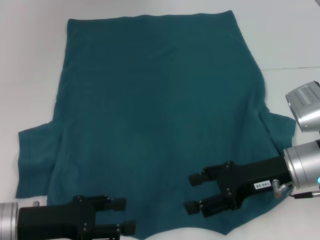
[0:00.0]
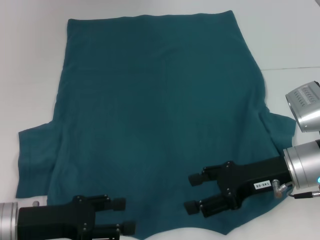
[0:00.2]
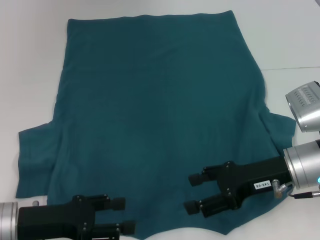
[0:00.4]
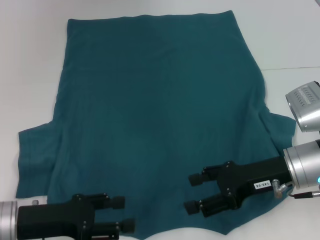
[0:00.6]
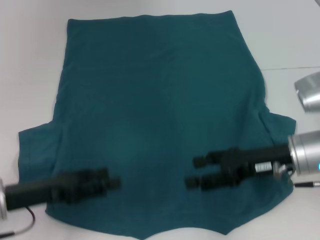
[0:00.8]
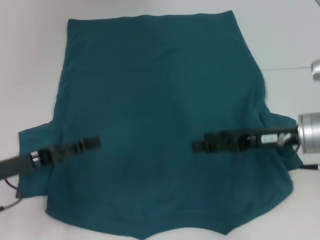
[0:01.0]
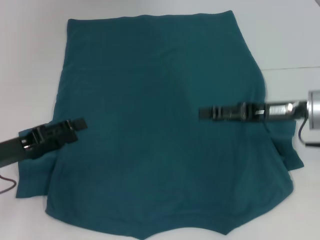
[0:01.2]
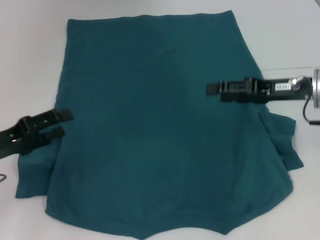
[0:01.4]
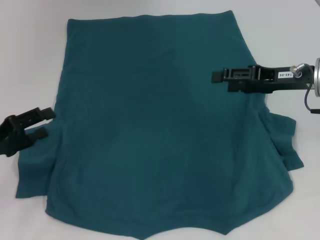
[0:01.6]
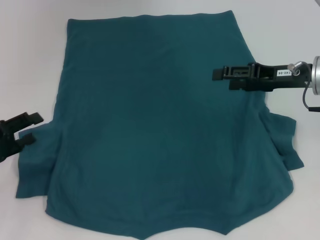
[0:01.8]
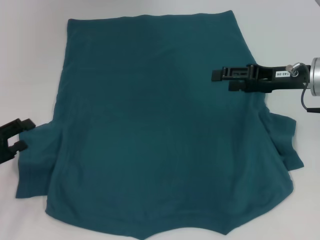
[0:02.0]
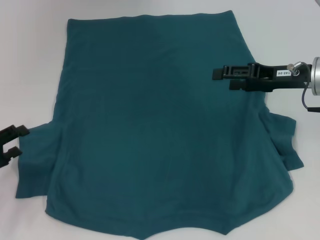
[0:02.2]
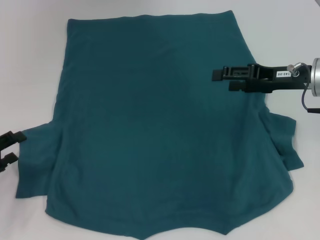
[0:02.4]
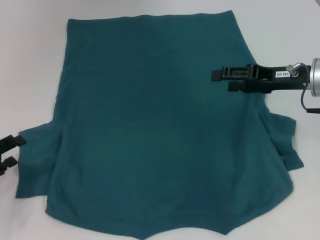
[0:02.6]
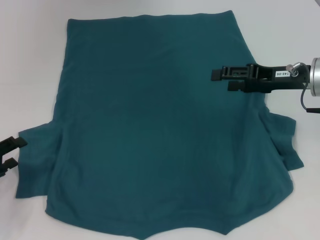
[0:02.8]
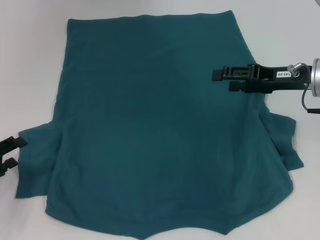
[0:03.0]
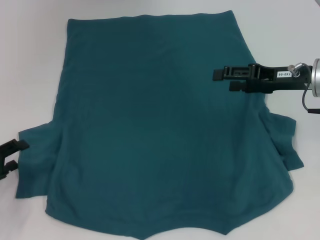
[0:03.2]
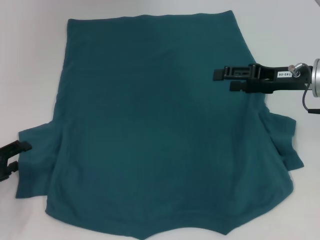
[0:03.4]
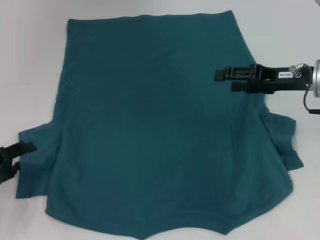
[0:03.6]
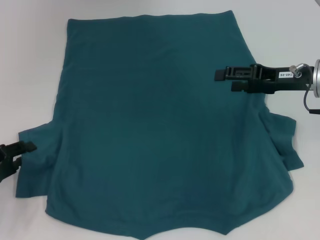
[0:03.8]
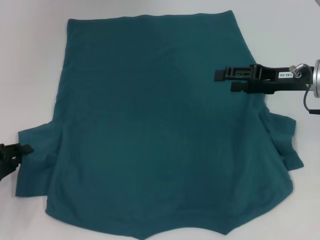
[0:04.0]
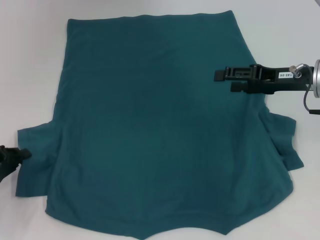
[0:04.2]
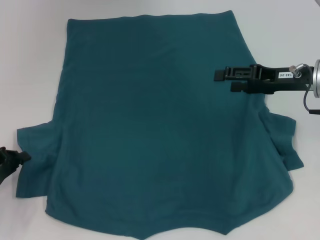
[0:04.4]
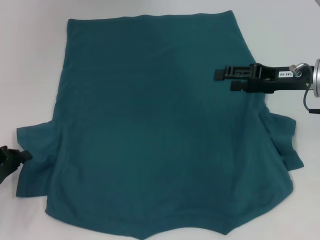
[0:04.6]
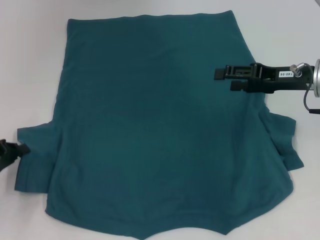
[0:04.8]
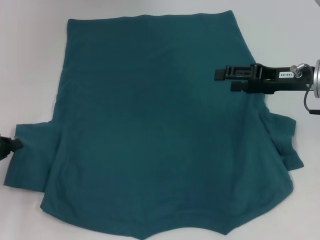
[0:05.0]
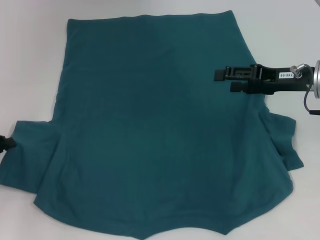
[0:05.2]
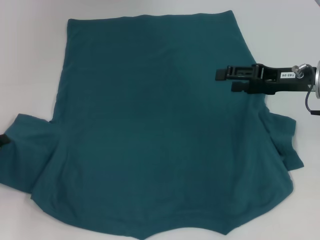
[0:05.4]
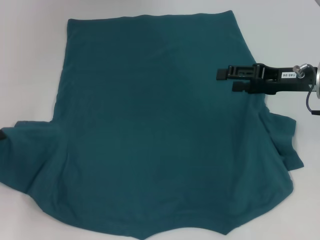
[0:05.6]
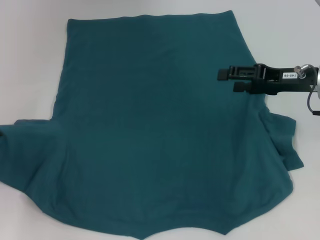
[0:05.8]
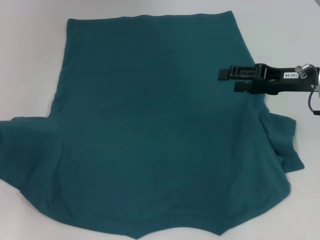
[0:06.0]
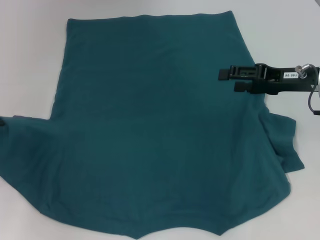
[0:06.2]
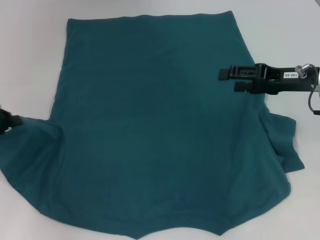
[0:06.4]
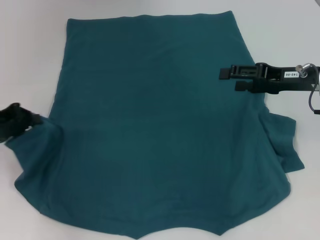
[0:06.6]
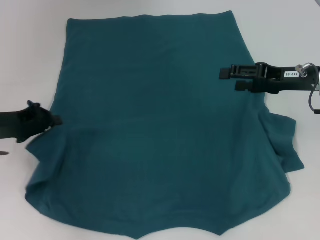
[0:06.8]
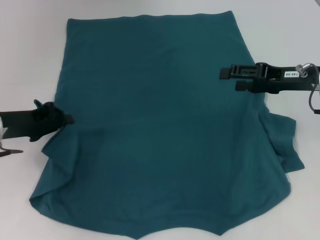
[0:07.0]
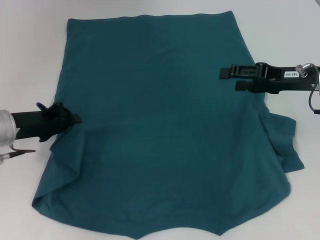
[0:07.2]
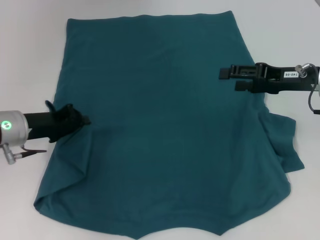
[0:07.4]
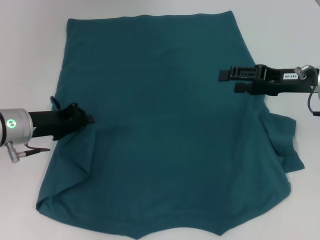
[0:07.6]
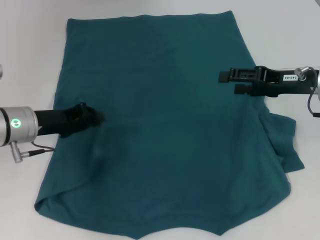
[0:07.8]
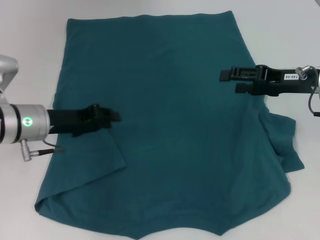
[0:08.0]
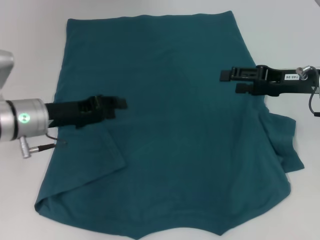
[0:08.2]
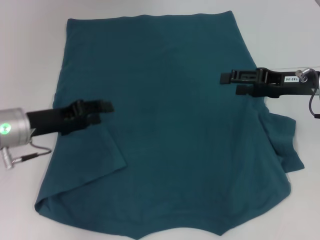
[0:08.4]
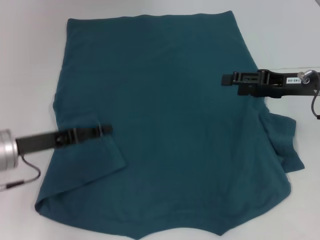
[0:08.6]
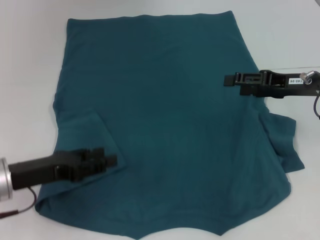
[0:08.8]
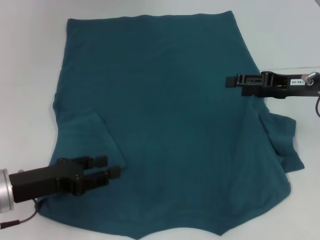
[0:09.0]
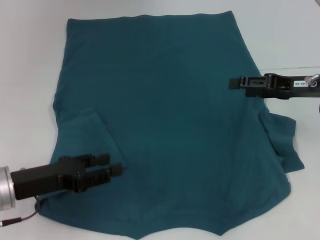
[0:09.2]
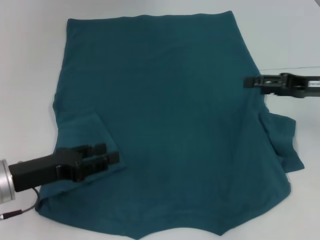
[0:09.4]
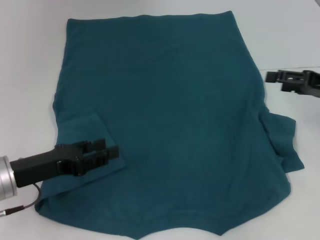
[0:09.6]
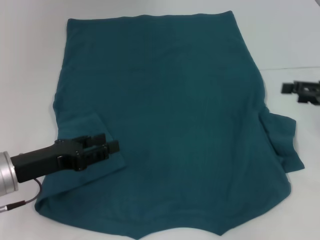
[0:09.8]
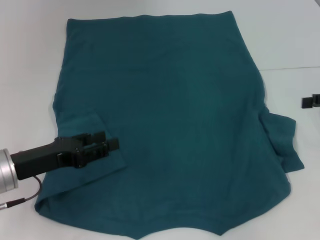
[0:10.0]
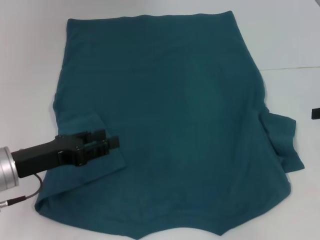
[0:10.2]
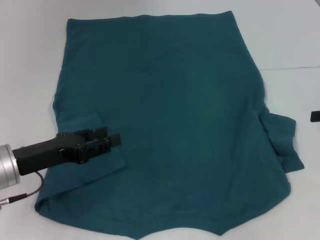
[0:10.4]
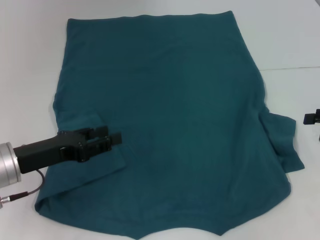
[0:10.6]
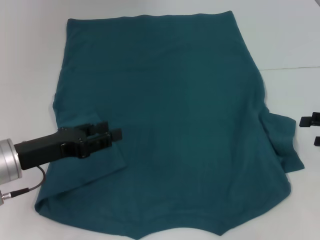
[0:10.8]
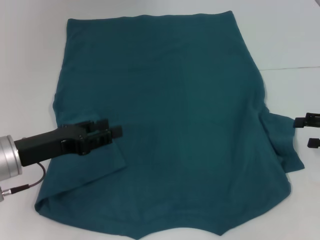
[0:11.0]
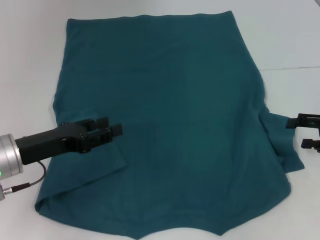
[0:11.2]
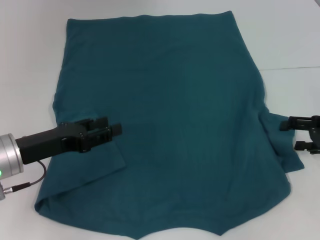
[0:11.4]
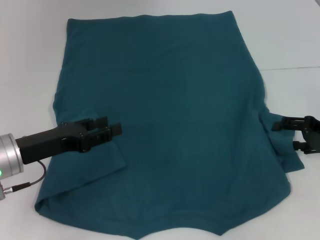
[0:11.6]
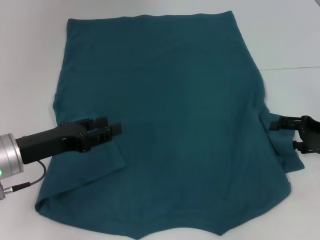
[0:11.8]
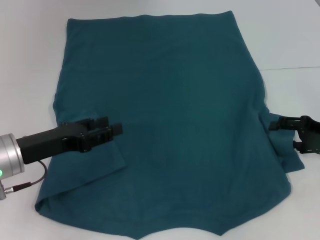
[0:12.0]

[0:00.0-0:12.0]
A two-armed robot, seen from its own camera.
Step, 0:00.0 to 0:08.0: Fold the bottom left sleeve with your left hand.
0:00.0 to 0:01.6: The left gripper shifts approximately 10 cm to the left and forward; the right gripper moves forward, upward and to the right, some 10 cm.
0:01.6 to 0:03.0: The left gripper moves roughly 5 cm.
0:03.0 to 0:04.4: The left gripper closes its fingers.
0:04.4 to 0:06.0: The left gripper moves upward, roughly 5 cm.
0:06.0 to 0:07.6: The left gripper is displaced to the right by roughly 15 cm.
0:07.6 to 0:09.0: The left gripper heads backward, covering some 10 cm, and opens.
0:09.0 to 0:10.4: The right gripper shifts roughly 10 cm to the right and backward.
0:10.4 to 0:12.0: The right gripper is displaced downward by some 5 cm.

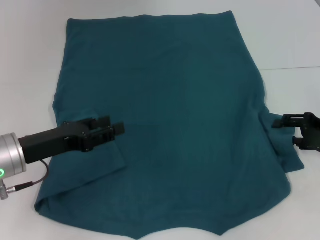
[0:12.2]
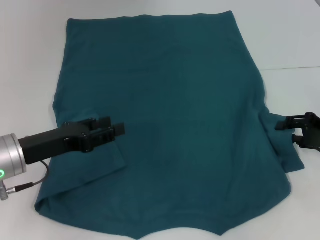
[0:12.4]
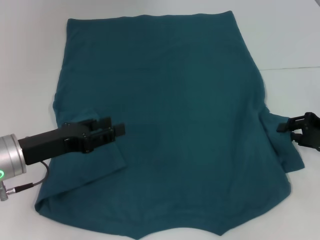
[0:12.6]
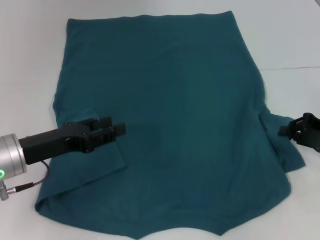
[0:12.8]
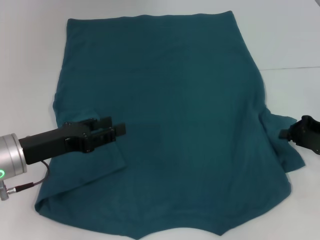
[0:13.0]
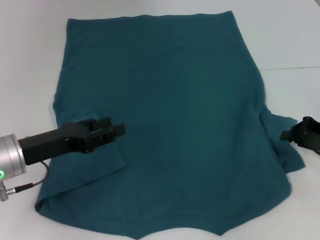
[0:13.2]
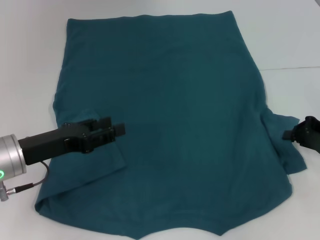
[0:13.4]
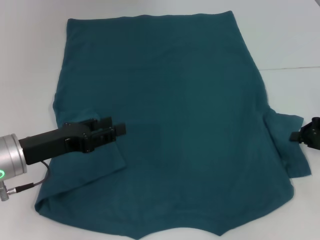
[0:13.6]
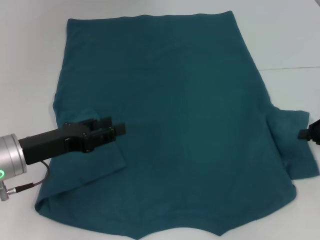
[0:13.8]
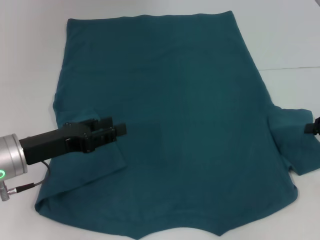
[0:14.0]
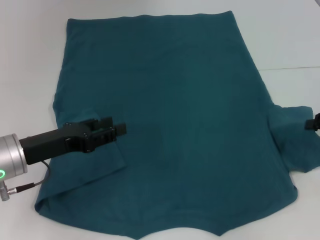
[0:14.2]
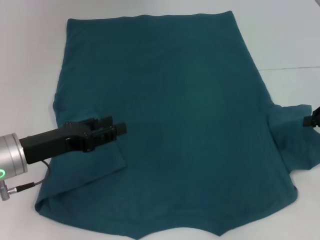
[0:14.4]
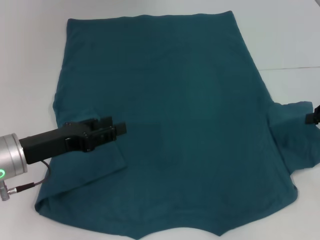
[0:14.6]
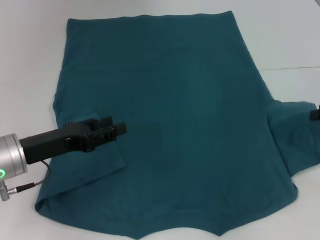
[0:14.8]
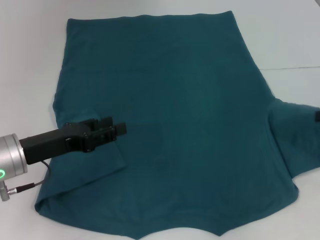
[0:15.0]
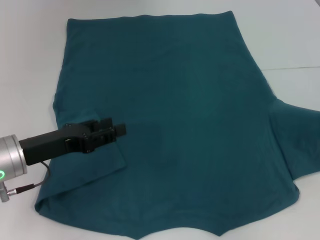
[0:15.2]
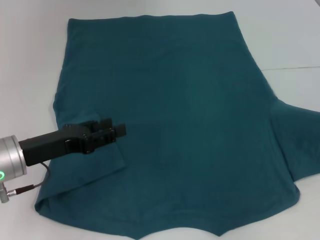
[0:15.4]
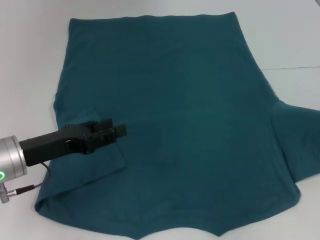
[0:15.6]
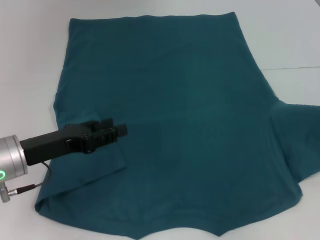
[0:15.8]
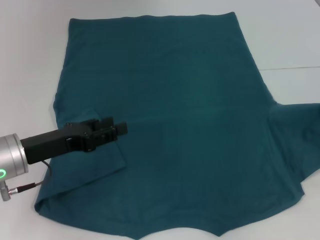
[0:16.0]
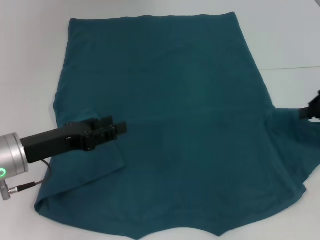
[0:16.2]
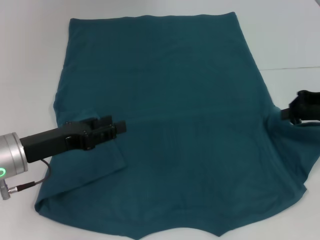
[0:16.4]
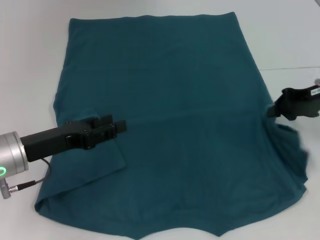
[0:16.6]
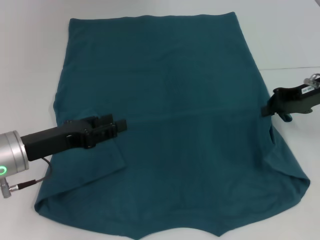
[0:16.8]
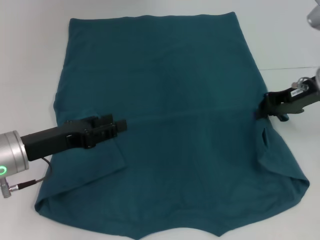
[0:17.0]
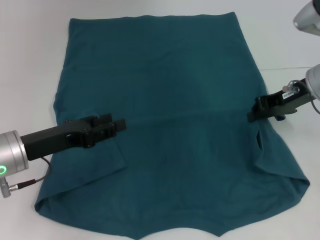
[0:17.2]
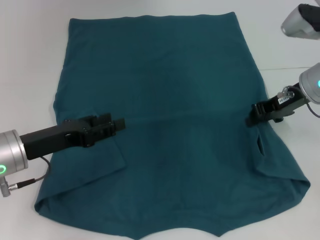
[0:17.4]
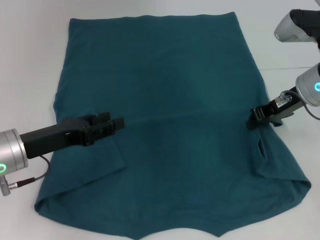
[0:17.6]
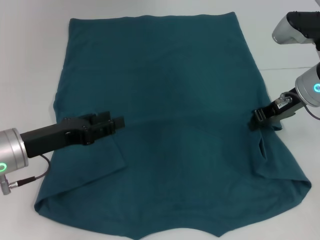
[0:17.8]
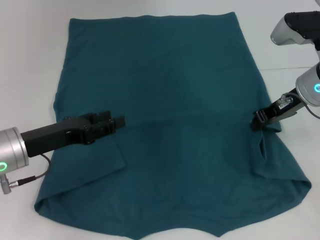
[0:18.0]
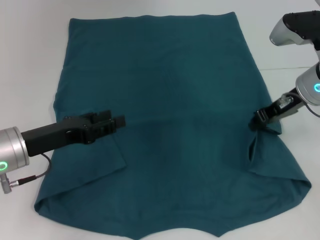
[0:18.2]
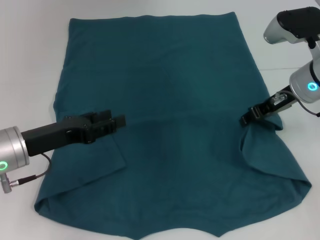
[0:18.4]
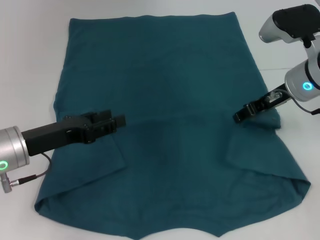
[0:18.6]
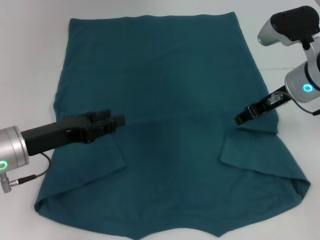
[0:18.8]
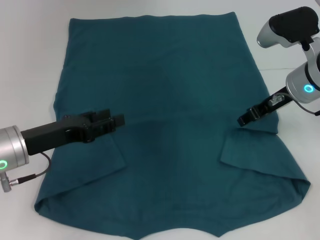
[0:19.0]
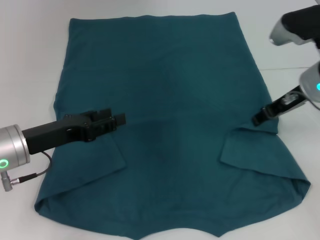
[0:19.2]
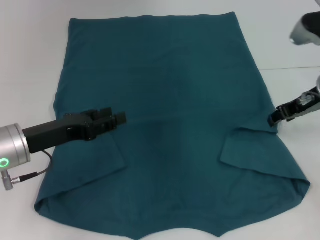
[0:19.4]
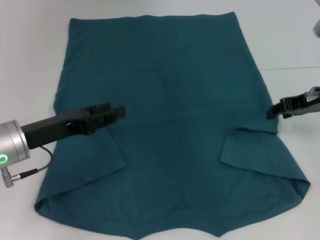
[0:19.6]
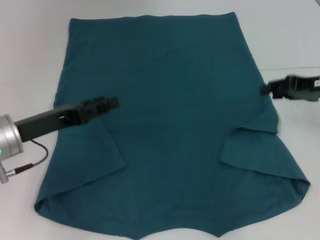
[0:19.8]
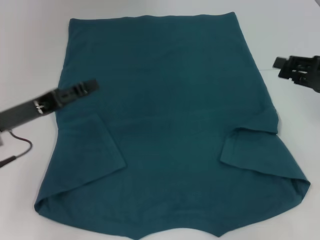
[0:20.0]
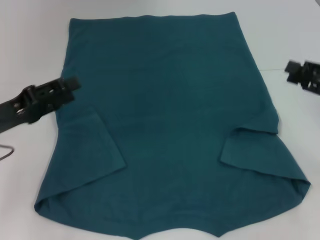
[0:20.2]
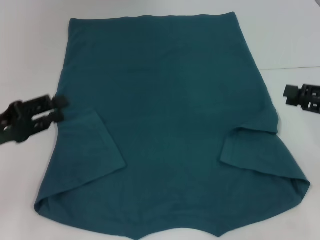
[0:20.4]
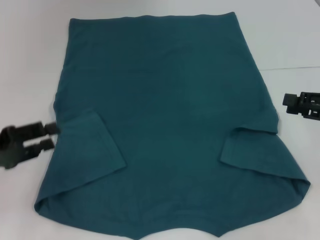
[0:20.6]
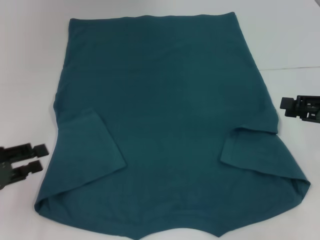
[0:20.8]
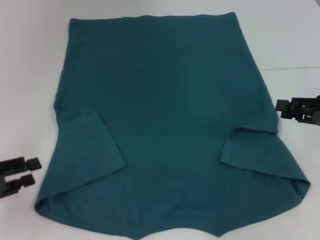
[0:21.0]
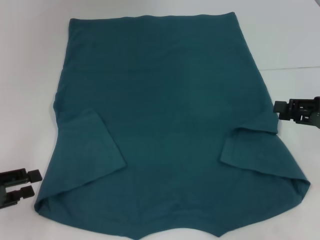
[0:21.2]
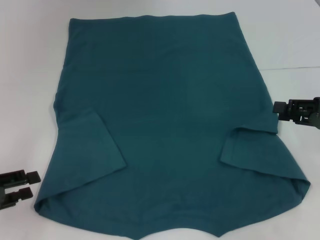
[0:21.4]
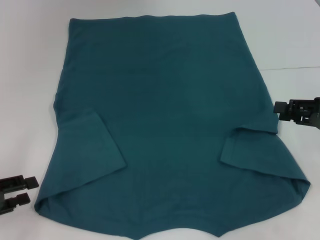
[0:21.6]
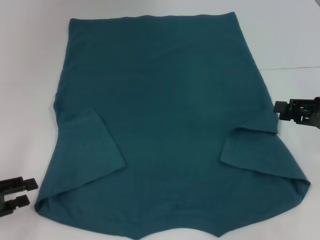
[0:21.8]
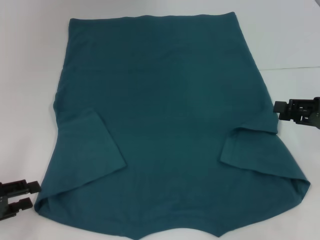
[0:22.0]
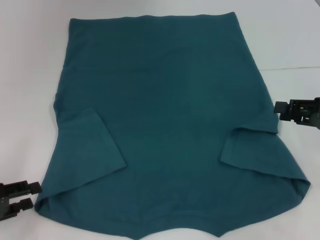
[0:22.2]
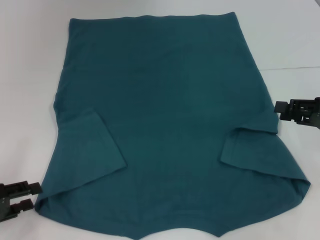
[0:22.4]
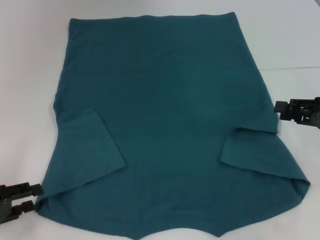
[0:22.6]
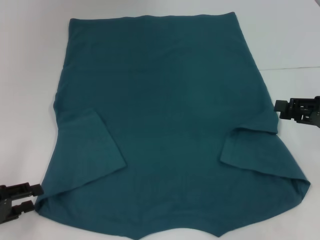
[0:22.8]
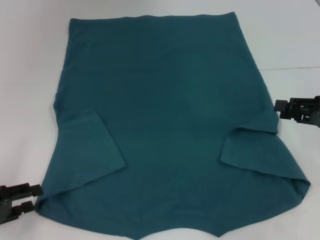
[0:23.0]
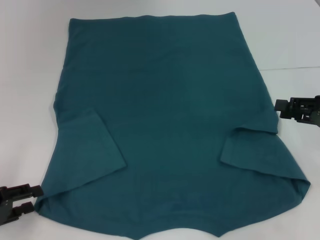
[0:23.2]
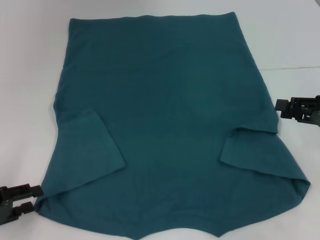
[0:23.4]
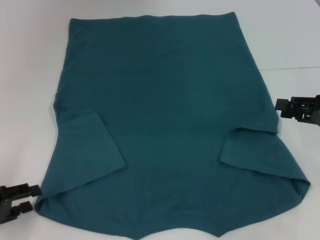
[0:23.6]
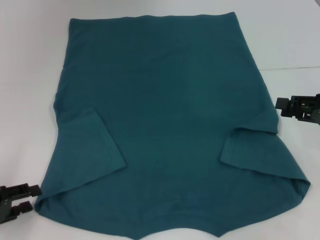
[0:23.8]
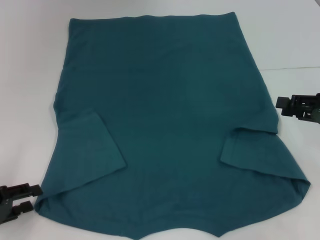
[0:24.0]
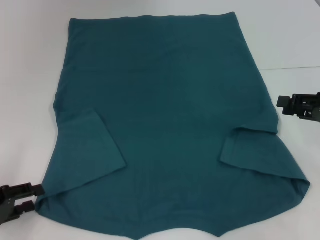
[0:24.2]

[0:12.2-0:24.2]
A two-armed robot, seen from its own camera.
Step, 0:12.2 to 0:18.6: Fold the bottom right sleeve to the right.
0:12.2 to 0:13.8: The right gripper closes up.
0:13.8 to 0:15.2: The right gripper heads upward, covering approximately 5 cm.
0:15.2 to 0:16.6: The right gripper heads to the left, covering approximately 10 cm.
0:16.6 to 0:18.2: The right gripper goes roughly 5 cm to the left.
0:18.2 to 0:19.8: The right gripper travels to the right by some 5 cm, and opens its fingers.
0:19.8 to 0:21.2: The right gripper shifts roughly 5 cm backward, while the left gripper shifts about 15 cm to the left and backward.
0:21.2 to 0:22.6: The grippers stay close to where they were, moving slightly.
0:22.6 to 0:24.2: Both grippers stay about where they are.
